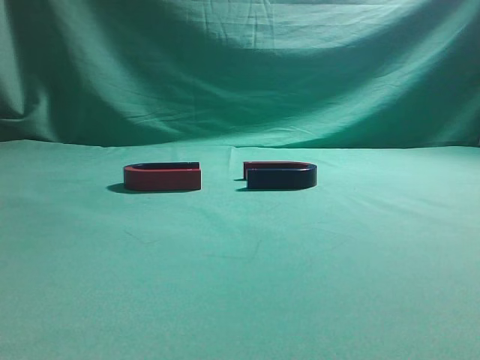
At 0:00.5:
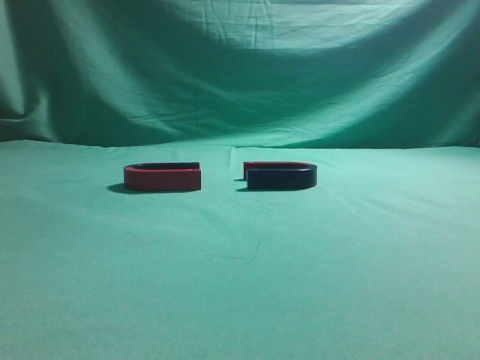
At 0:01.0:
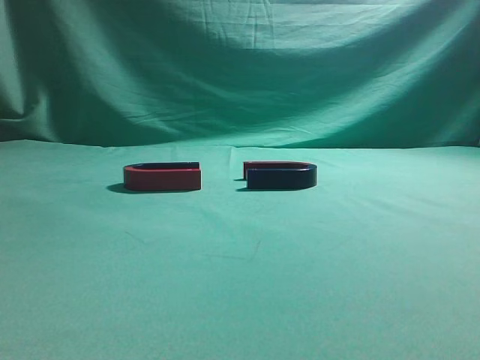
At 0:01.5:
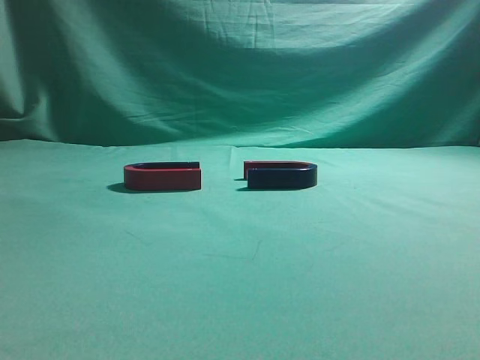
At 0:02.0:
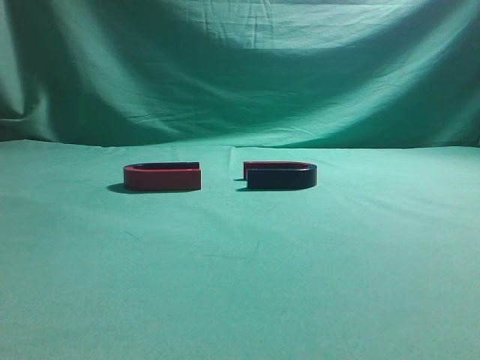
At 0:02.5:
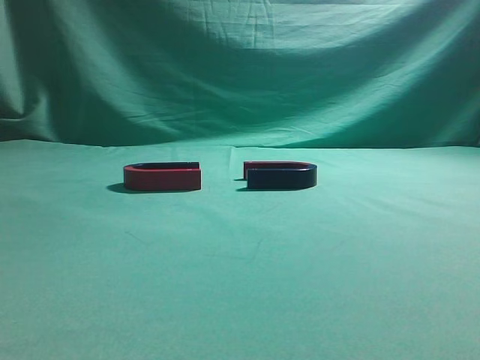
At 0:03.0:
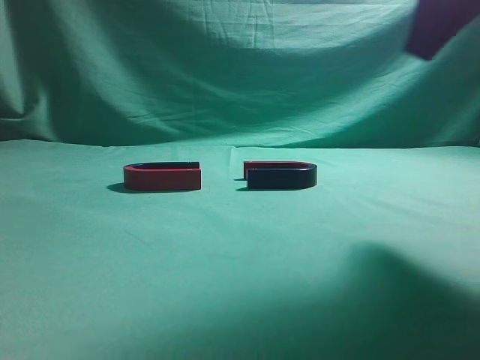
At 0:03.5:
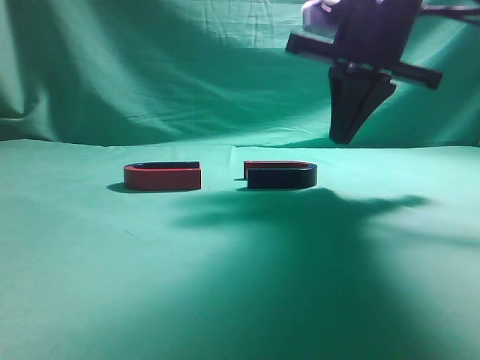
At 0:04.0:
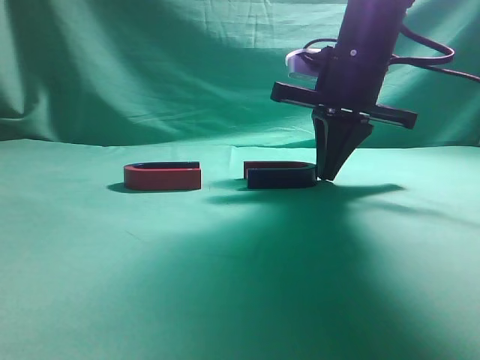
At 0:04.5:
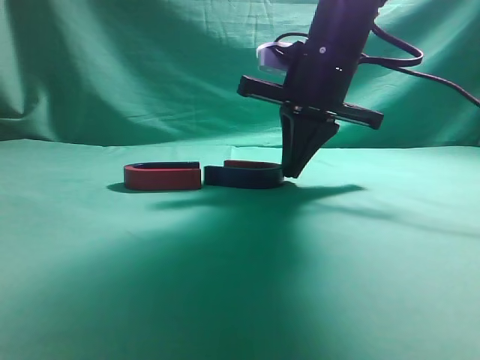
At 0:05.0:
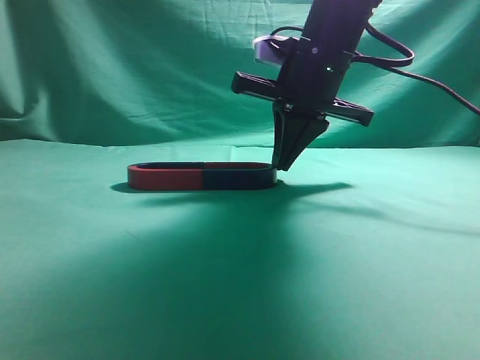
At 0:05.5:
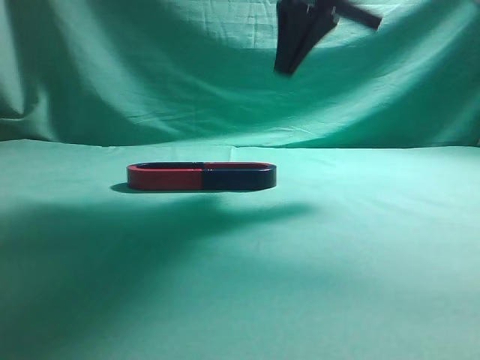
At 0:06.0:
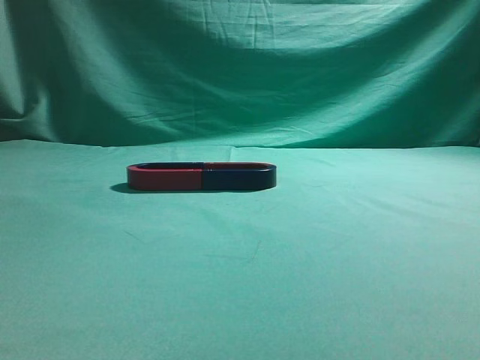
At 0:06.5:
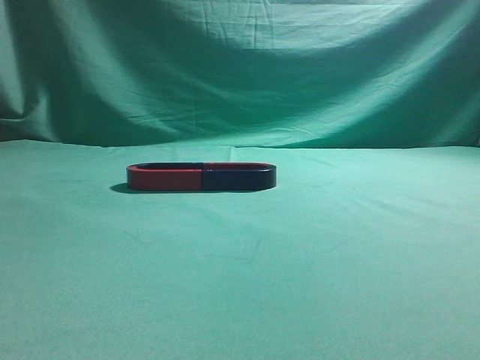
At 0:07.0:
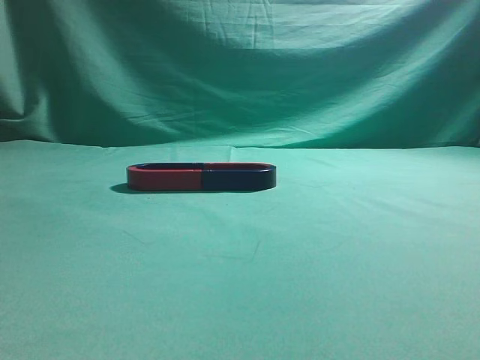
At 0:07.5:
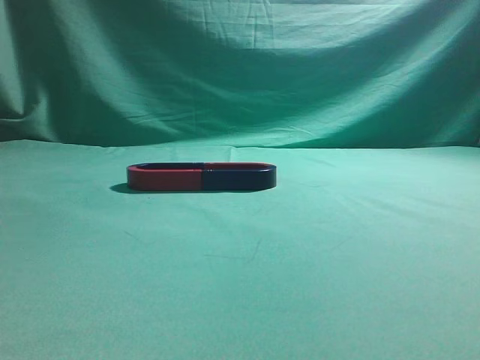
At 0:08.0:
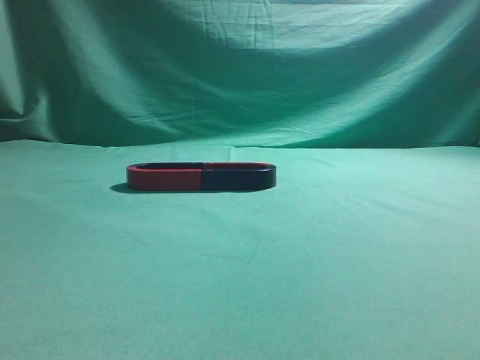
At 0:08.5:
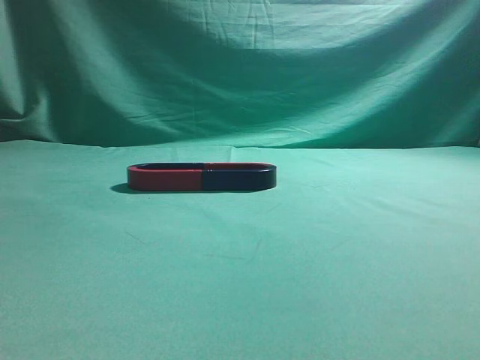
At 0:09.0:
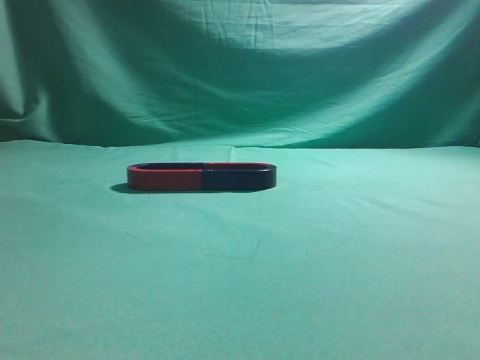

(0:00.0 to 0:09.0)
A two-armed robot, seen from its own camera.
Task of the whole recording: push the magnet on the table from its original position to another position.
Step, 0:00.0 - 0:05.0: Push the magnet on the right to connect the magnet on the left.
0:02.0 - 0:04.5: The right gripper heads forward and to the left, covering approximately 40 cm.
0:04.5 - 0:07.0: The right gripper shifts approximately 40 cm backward, upward and to the right.
